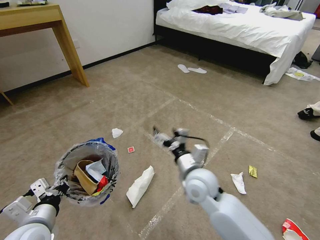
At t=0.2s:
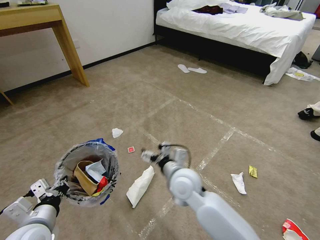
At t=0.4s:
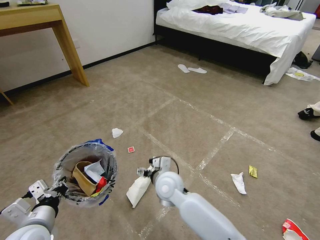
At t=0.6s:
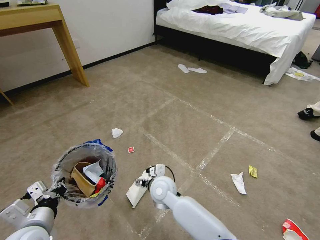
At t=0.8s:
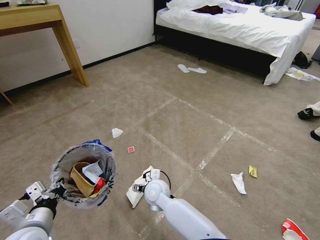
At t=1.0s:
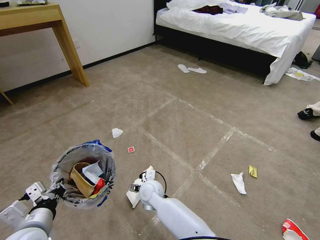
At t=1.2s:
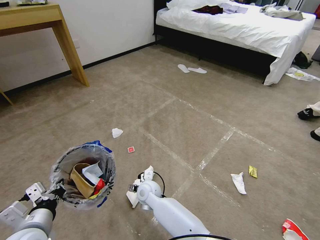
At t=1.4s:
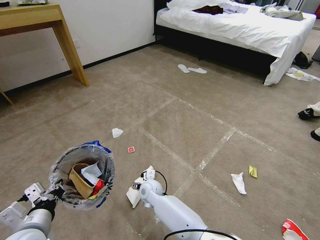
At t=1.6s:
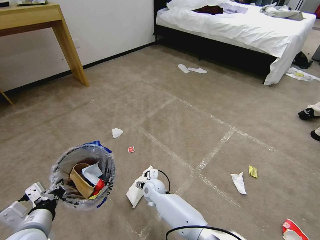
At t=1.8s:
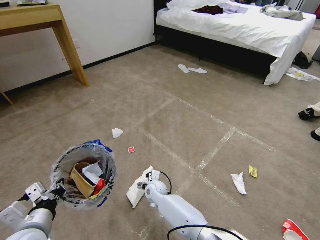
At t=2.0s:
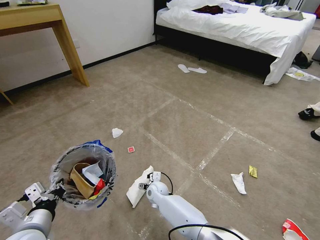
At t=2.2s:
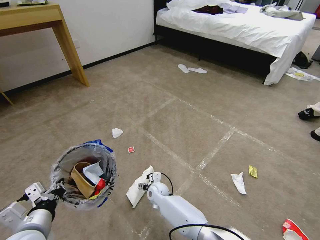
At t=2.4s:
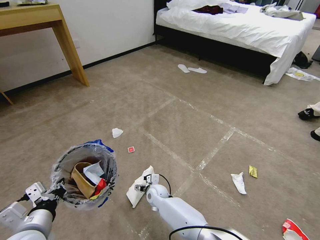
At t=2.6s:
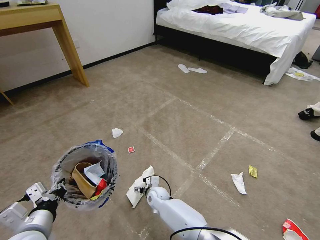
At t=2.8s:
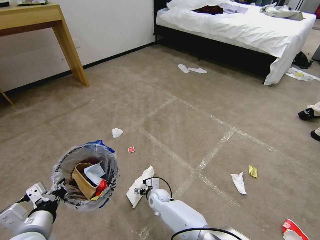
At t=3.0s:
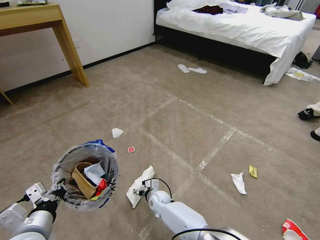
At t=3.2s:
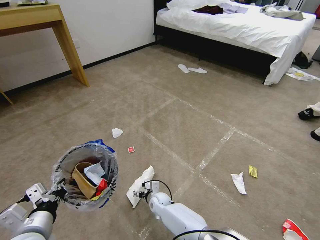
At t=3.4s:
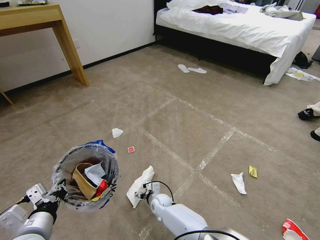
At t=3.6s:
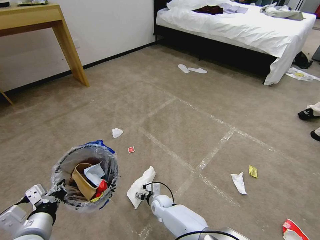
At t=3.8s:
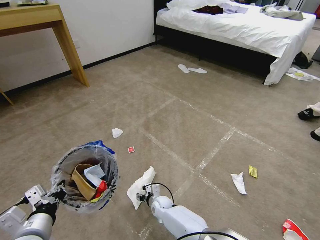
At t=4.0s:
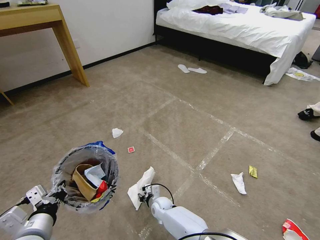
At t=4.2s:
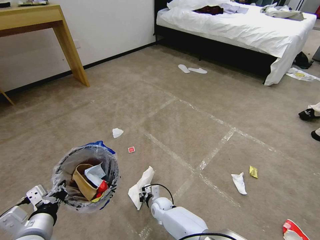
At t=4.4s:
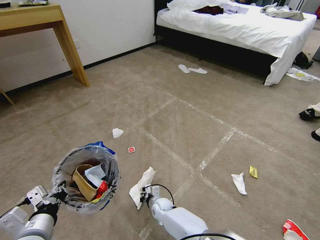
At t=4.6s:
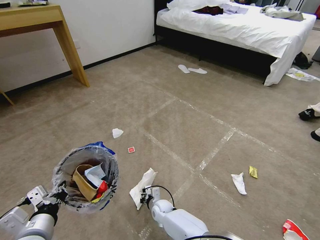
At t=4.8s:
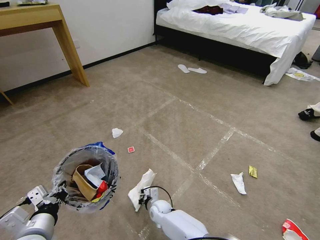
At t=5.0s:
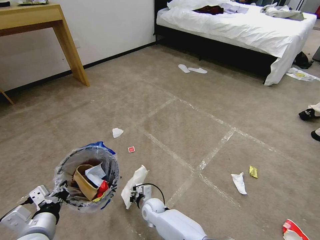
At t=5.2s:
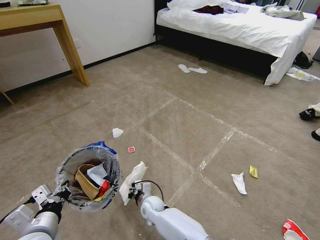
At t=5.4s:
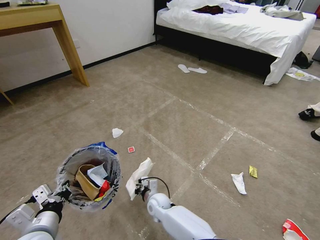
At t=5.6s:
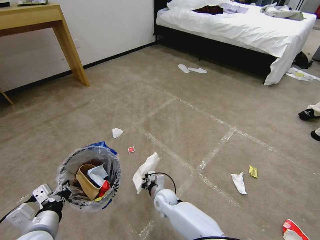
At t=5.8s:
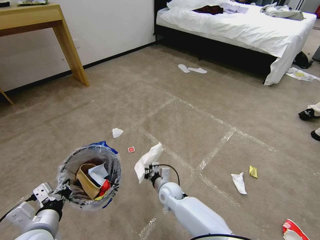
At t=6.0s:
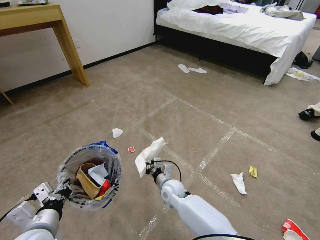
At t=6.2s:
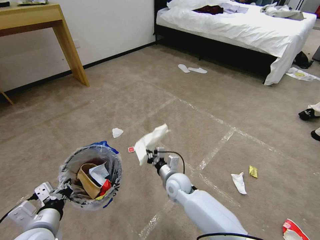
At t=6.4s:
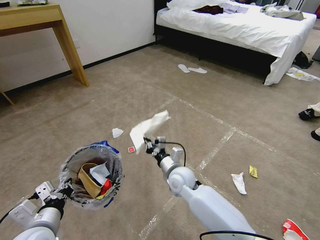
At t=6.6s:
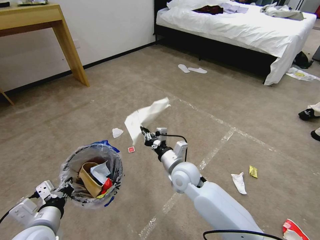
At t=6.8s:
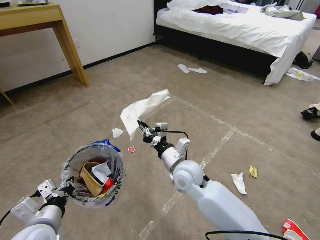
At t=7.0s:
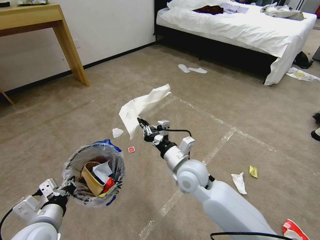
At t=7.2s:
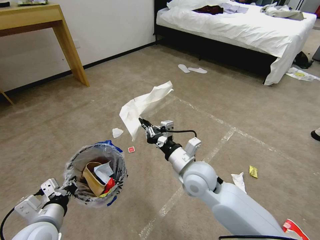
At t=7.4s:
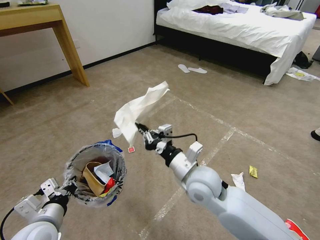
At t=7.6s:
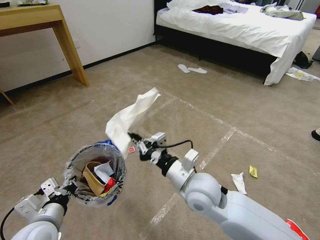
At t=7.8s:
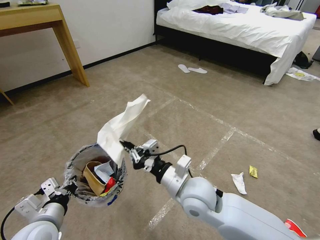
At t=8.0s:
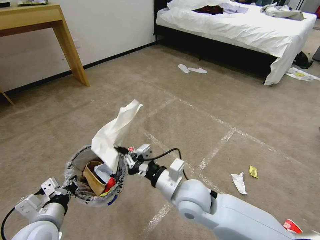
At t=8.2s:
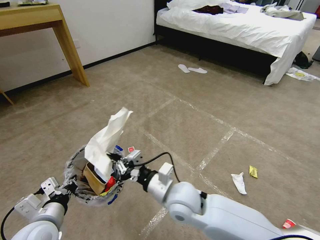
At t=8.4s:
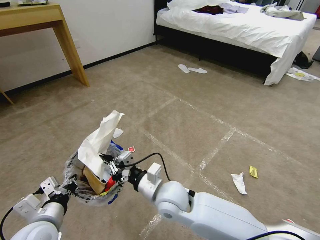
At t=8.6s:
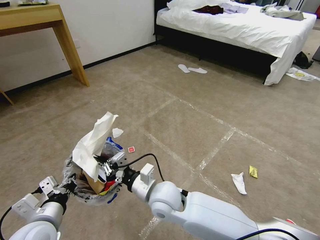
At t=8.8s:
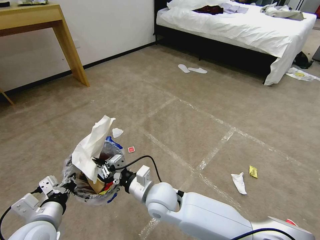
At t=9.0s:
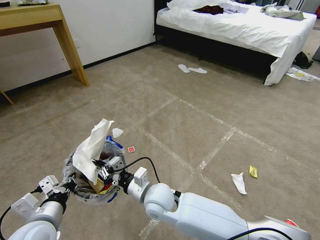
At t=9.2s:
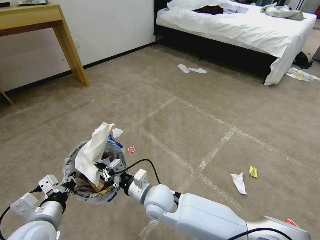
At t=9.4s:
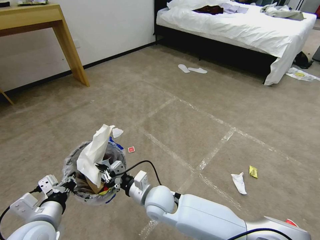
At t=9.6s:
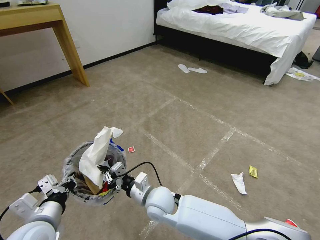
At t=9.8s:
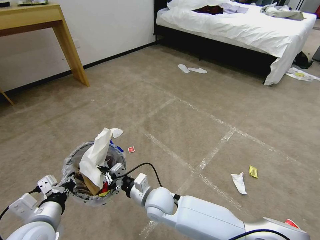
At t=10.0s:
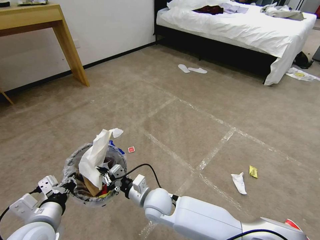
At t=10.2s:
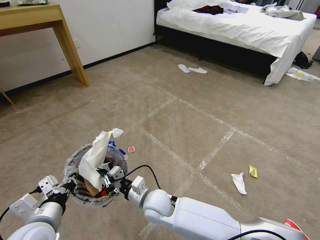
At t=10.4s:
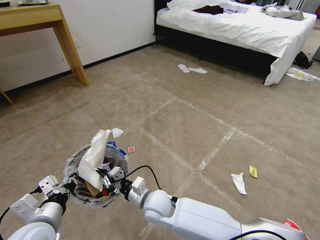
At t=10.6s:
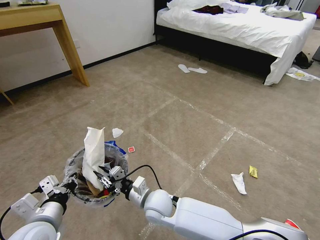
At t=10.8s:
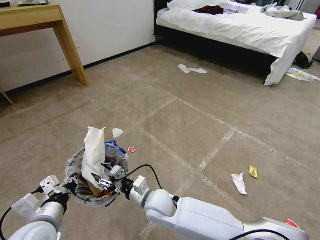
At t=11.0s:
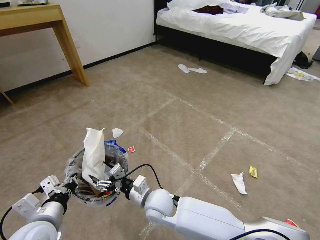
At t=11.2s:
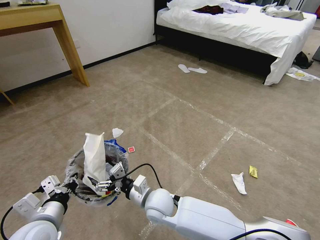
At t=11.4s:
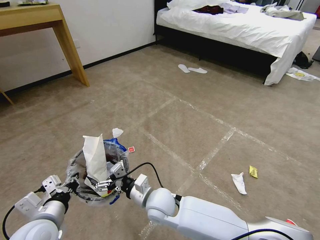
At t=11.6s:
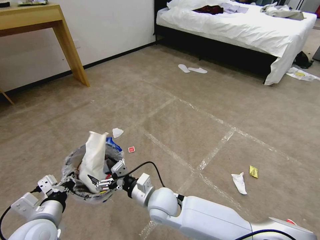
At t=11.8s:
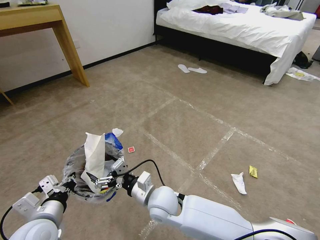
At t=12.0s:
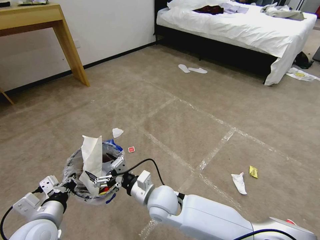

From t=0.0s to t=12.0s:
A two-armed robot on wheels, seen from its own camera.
Task of the whole recording: Pick up the trash bin and place the garbage on the floor into it.
From t=0.0s to t=1.6s: The right gripper heads downward and to the left, covering about 25 cm.
From t=1.6s to t=3.0s: The right gripper is displaced downward by some 10 cm.
From t=3.0s to t=4.4s: The right gripper closes.
From t=4.4s to t=6.0s: The right gripper goes approximately 15 cm upward.
From t=6.0s to t=7.6s: The right gripper goes about 25 cm upward and backward.
From t=7.6s to t=9.0s: The right gripper goes roughly 15 cm to the left and downward.
From t=9.0s to t=10.4s: The right gripper moves downward, approximately 5 cm.
From t=10.4s to t=12.0s: The right gripper moves approximately 5 cm, and opens.

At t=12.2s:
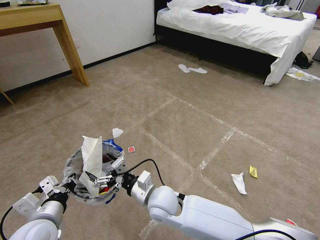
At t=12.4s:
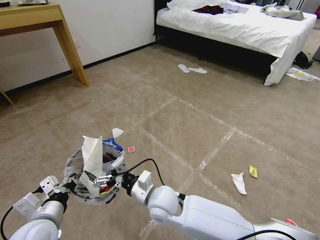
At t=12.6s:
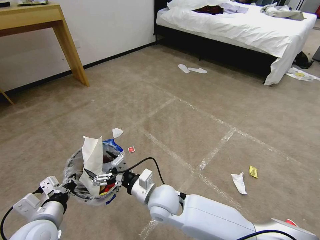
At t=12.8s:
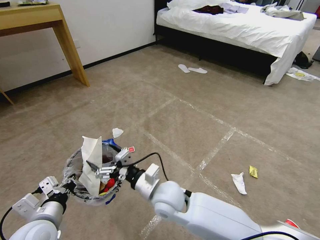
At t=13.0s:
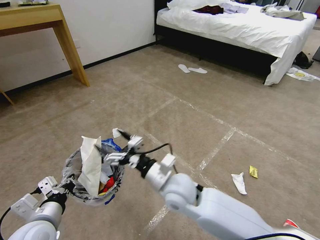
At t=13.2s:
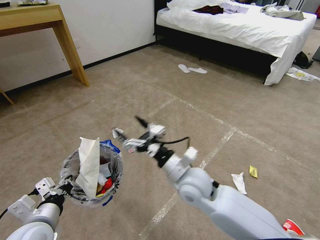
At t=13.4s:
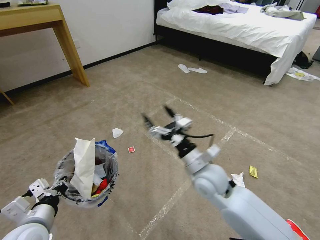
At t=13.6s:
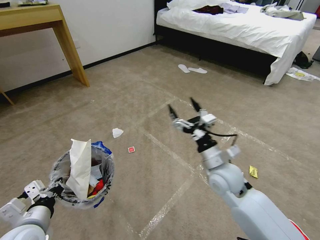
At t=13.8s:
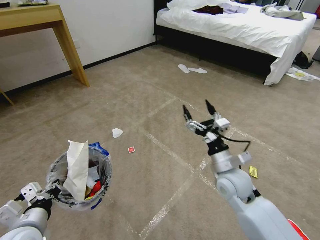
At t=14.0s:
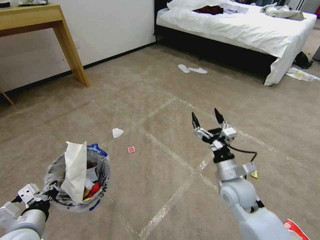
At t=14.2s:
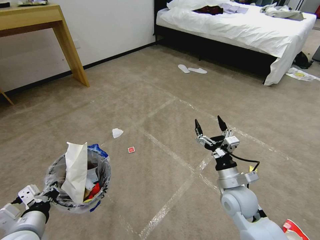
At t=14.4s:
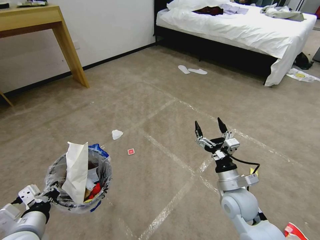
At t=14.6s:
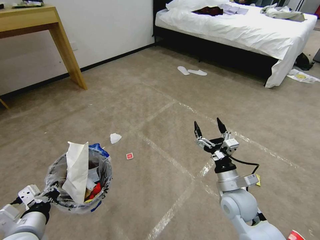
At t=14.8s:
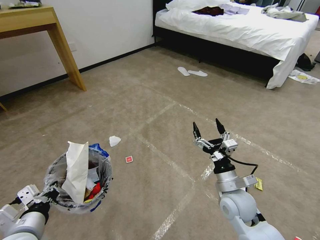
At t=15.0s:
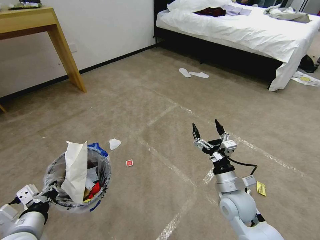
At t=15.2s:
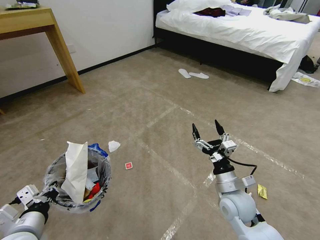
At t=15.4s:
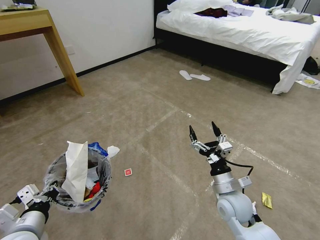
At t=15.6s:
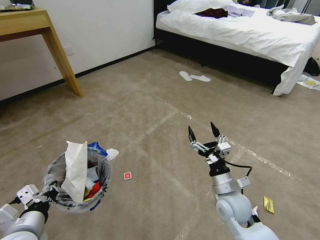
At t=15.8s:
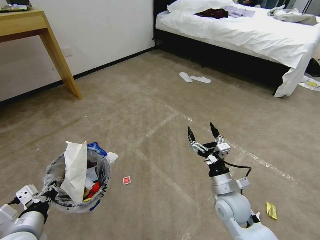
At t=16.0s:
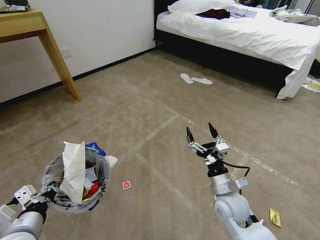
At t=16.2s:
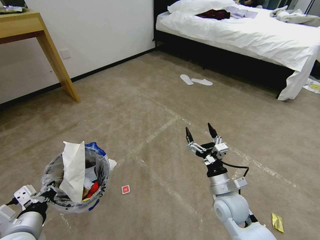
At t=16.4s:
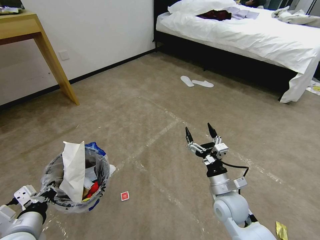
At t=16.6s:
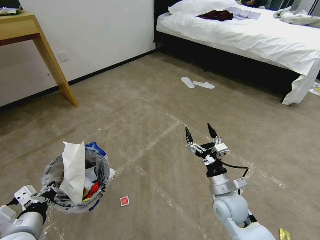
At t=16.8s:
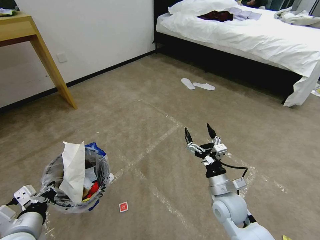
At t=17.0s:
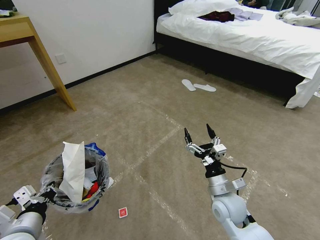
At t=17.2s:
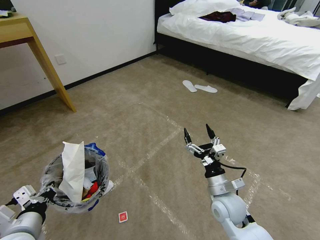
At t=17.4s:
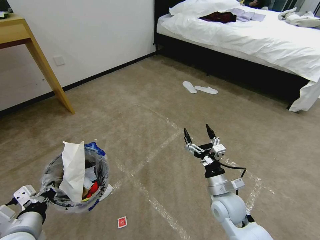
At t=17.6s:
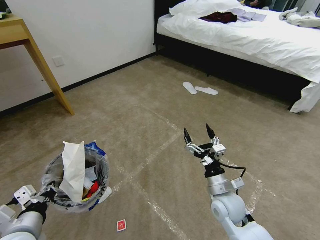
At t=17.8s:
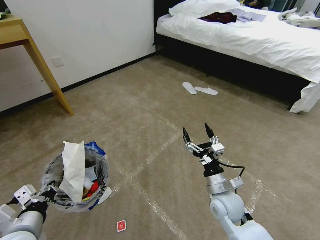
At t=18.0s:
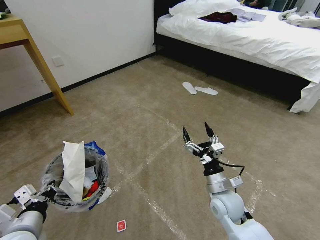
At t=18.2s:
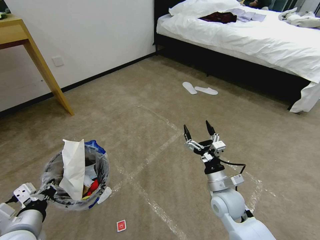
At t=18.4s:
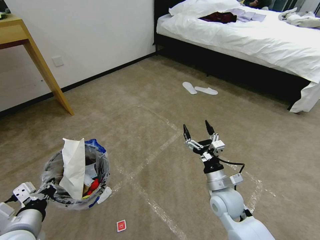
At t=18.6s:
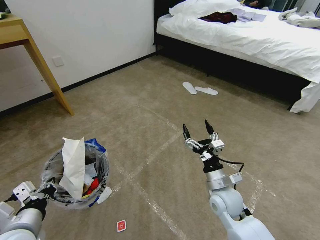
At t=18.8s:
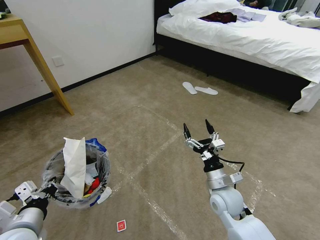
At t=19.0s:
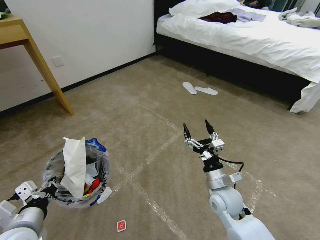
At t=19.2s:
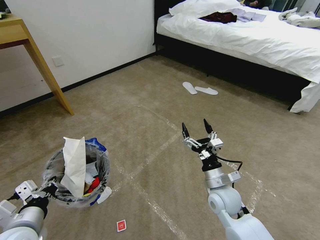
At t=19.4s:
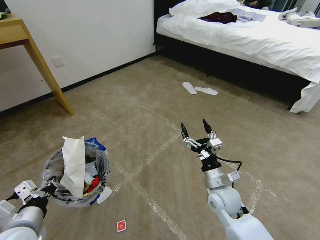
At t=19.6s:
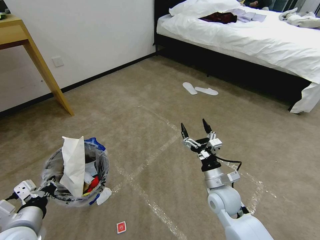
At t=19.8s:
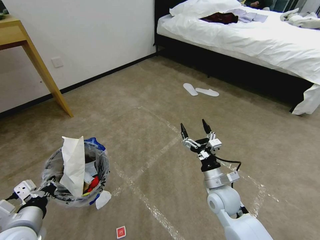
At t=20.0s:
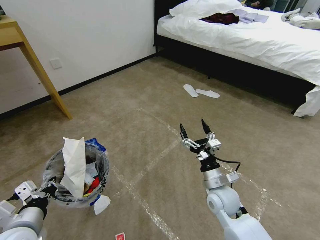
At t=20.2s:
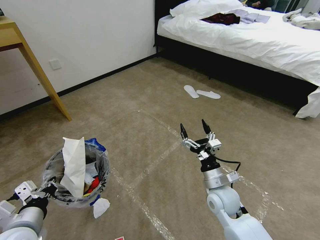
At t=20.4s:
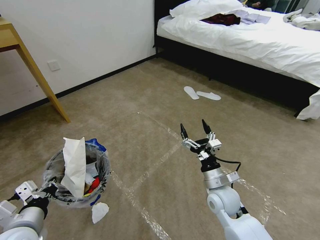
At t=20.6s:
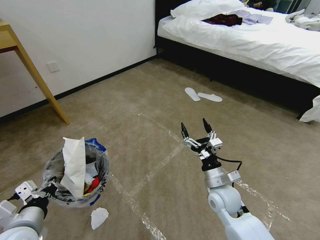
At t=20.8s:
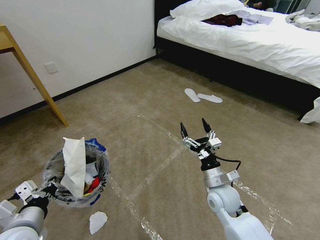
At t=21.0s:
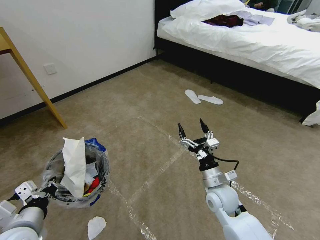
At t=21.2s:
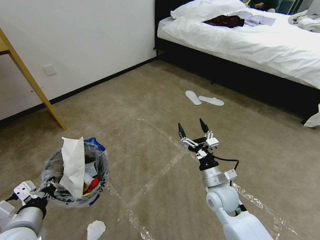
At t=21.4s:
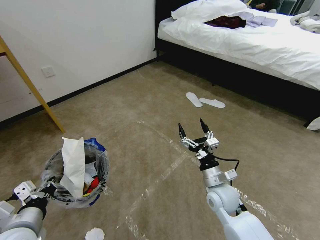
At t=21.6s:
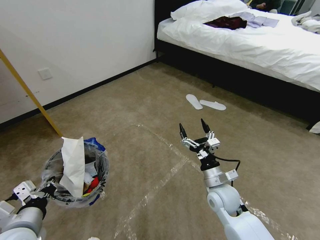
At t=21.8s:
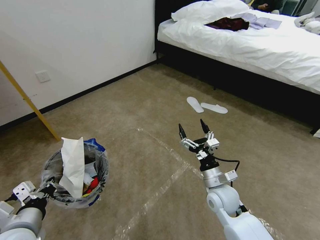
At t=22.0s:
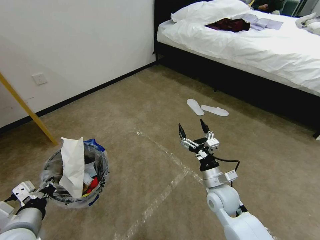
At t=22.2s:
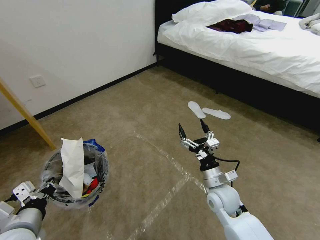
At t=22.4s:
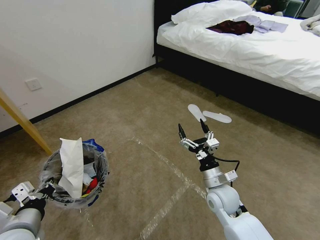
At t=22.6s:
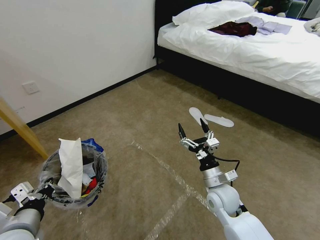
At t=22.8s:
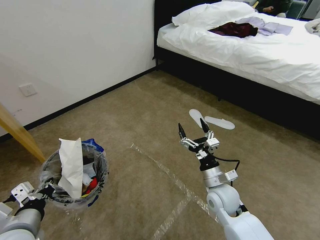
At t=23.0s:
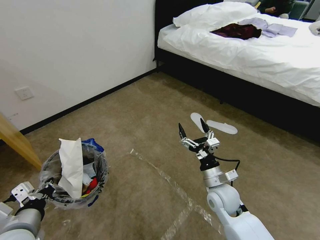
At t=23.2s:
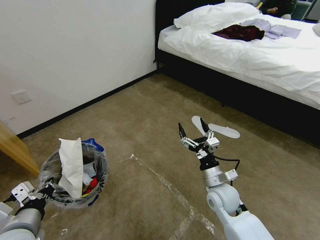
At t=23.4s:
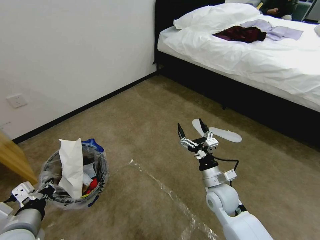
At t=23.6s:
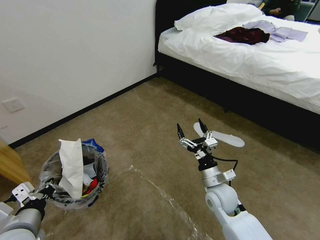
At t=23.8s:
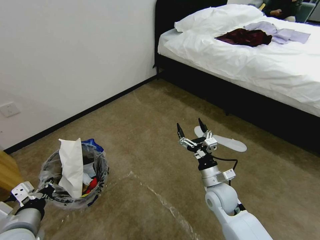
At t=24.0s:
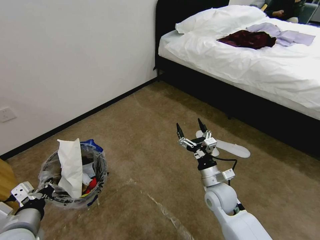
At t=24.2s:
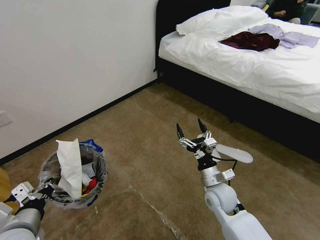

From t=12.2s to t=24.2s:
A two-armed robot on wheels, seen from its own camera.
Task of the whole recording: Pick up the trash bin and place the garbage on the floor into it.
From t=12.2s to t=13.8s: The right gripper is displaced to the right by roughly 20 cm.
From t=13.8s to t=15.2s: The right gripper moves some 5 cm.
From t=16.6s to t=18.2s: Both grippers stay about where they are.
From t=18.2s to t=19.8s: Both grippers stay put.
